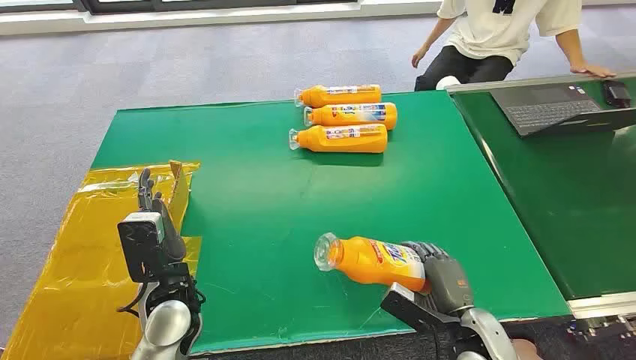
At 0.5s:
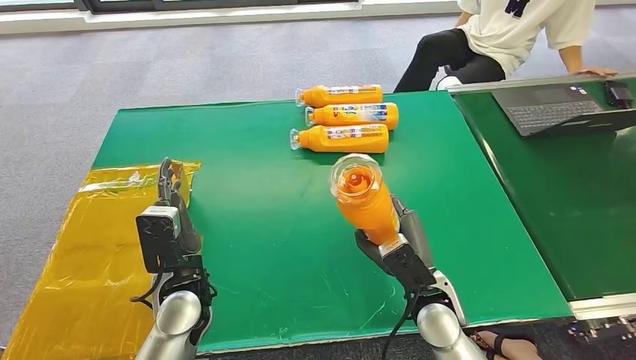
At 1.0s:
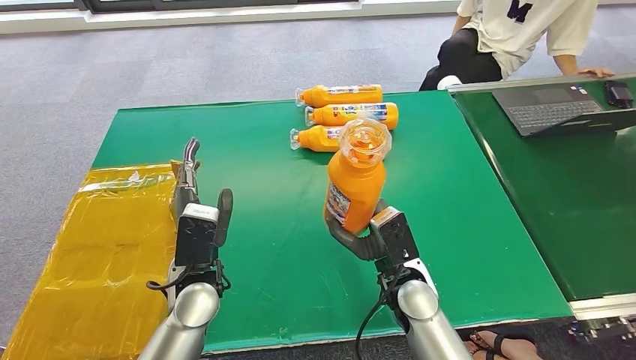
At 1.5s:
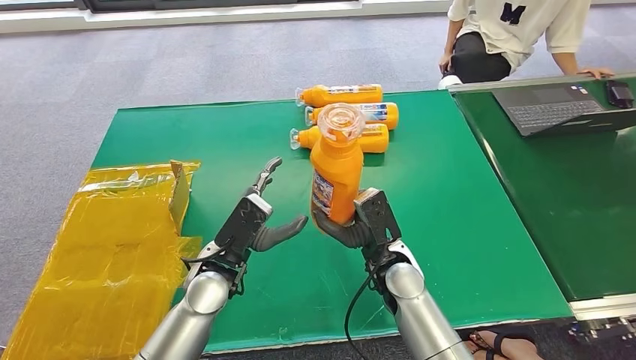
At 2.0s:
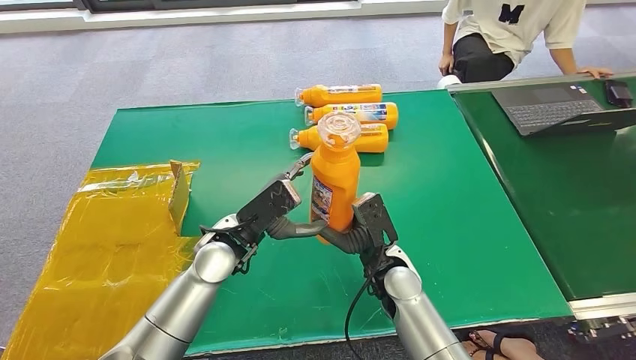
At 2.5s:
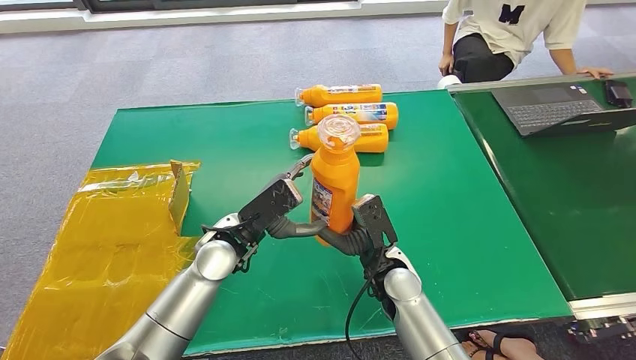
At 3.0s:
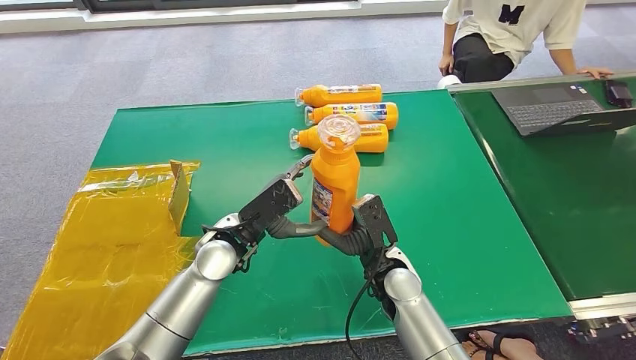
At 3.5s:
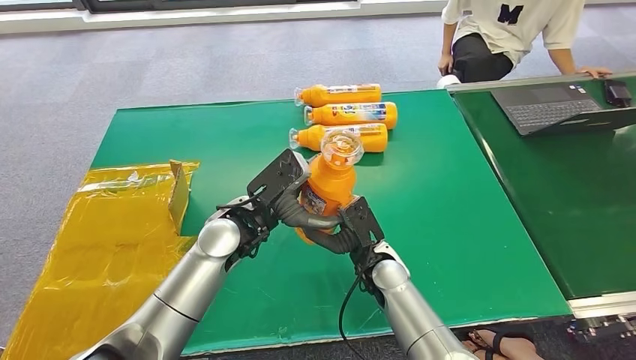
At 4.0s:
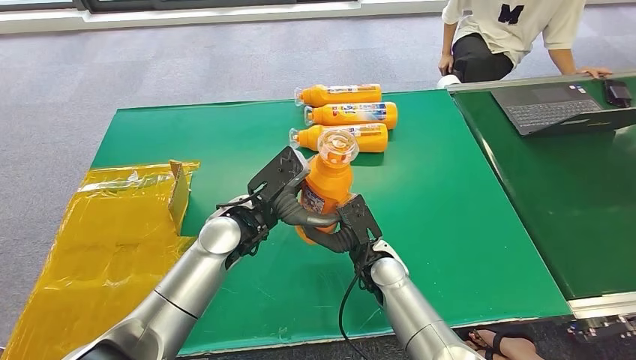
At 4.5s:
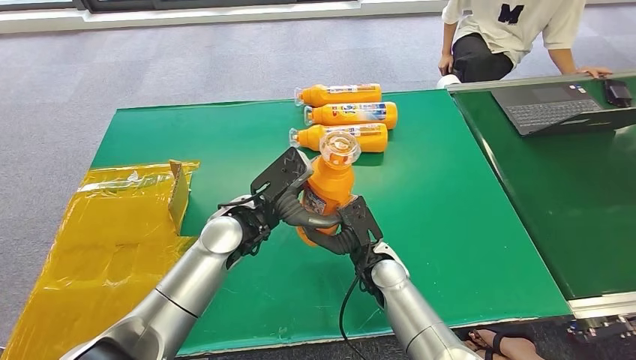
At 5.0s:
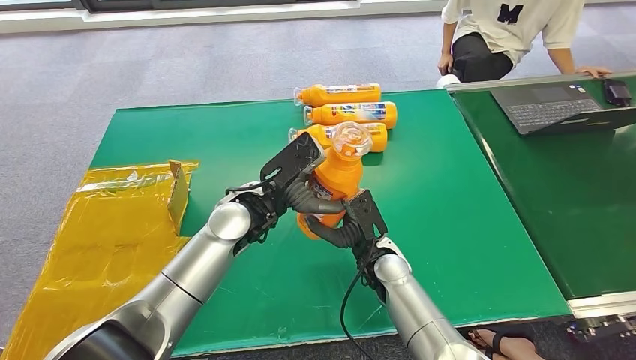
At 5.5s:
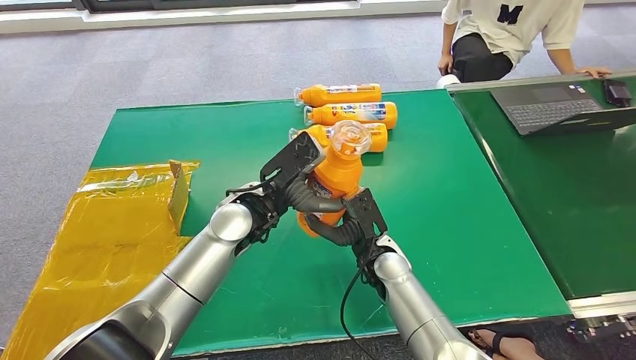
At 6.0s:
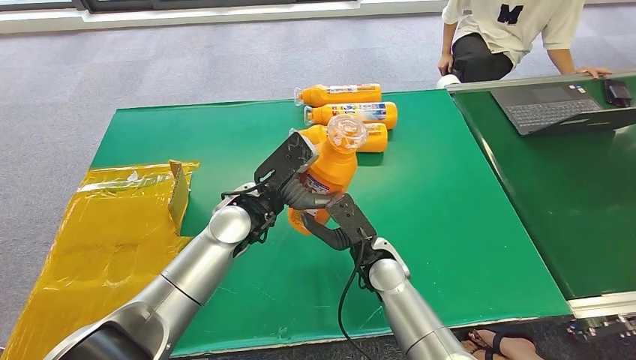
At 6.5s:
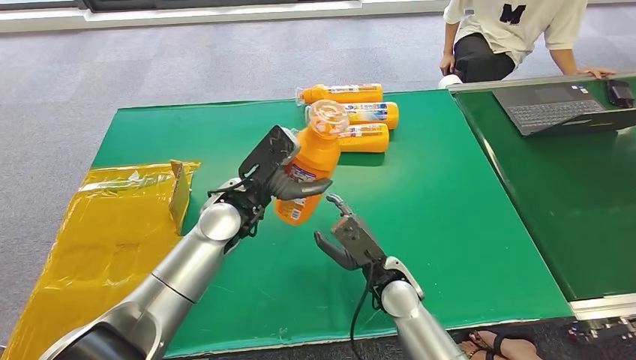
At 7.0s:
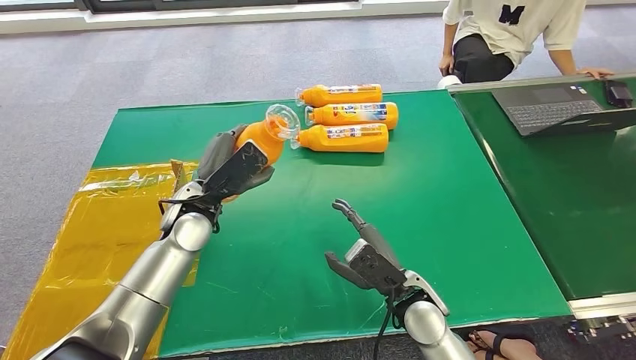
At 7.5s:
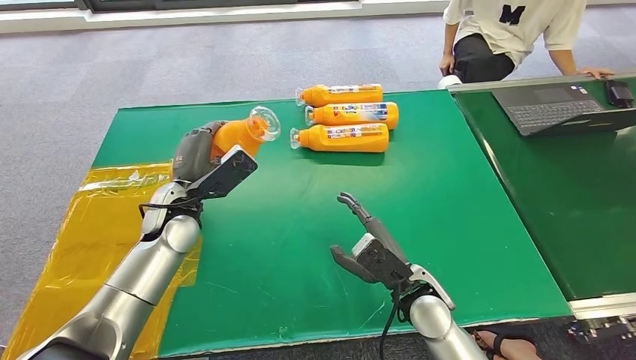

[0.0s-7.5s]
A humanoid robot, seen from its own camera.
Step, 0.0s to 0.5s: Pick up the bottle from the table.
Step, 1.0s to 7.5s: Turn the bottle to the front side.
2.0s to 4.0s: The hands make only small movements.
4.0s to 5.5s: The hands make only small movements.
5.5s to 7.5s: The right hand travels backward and to the right by about 10 cm. The left hand goes about 15 cm to the left.

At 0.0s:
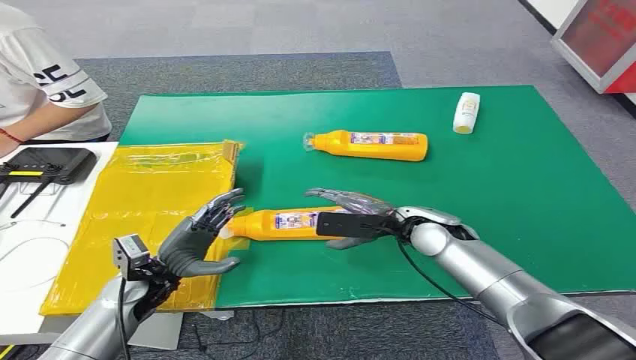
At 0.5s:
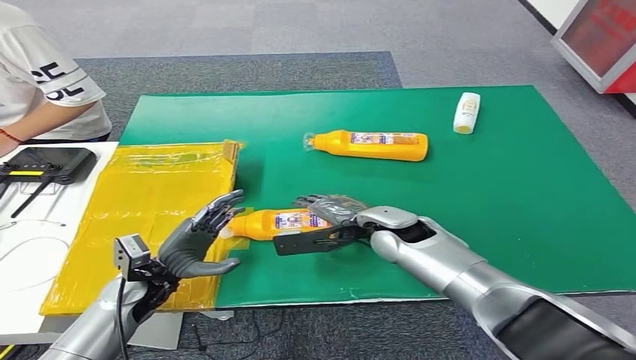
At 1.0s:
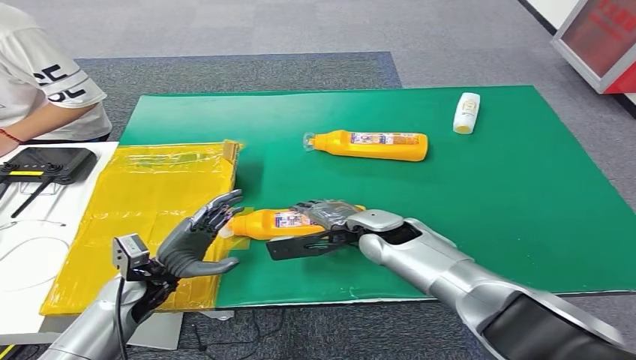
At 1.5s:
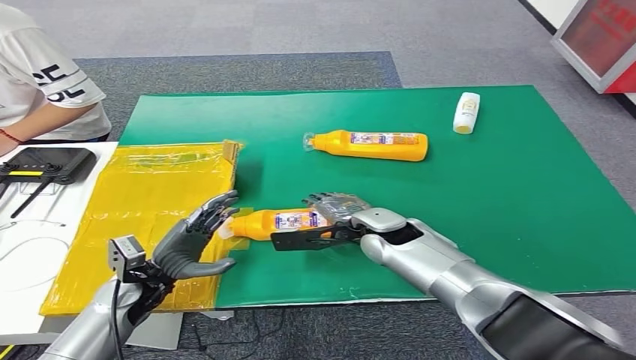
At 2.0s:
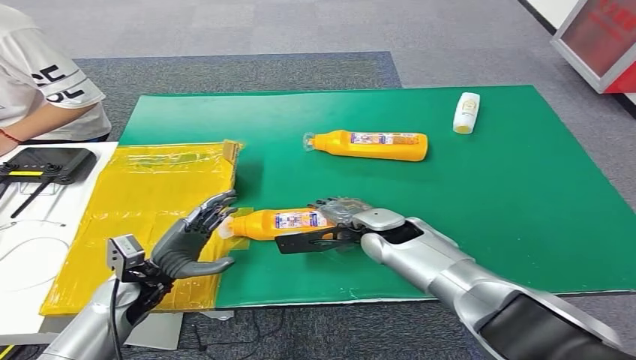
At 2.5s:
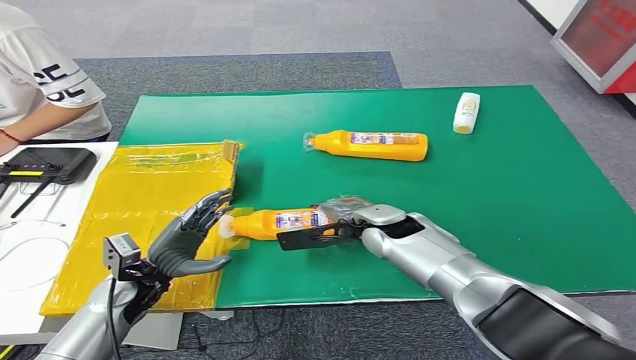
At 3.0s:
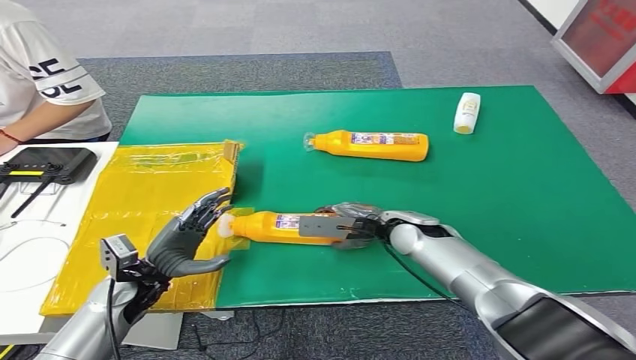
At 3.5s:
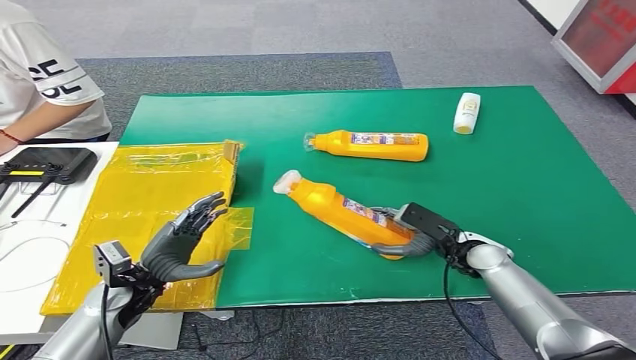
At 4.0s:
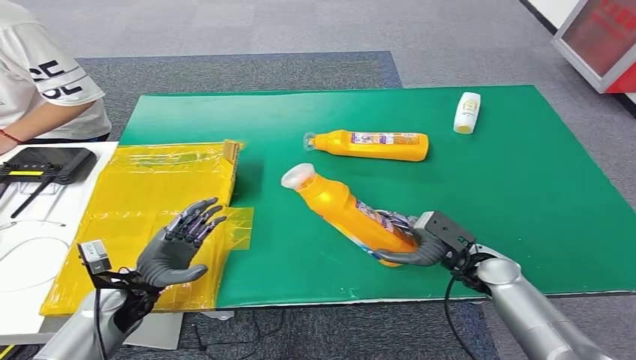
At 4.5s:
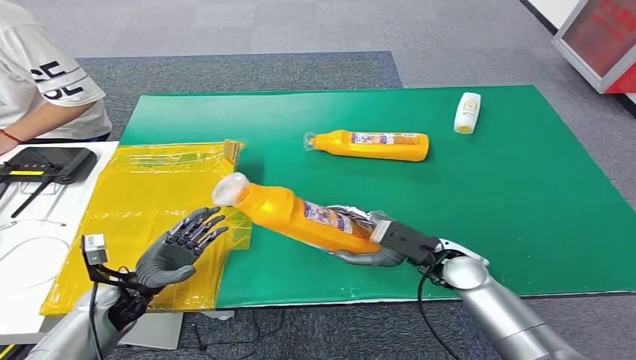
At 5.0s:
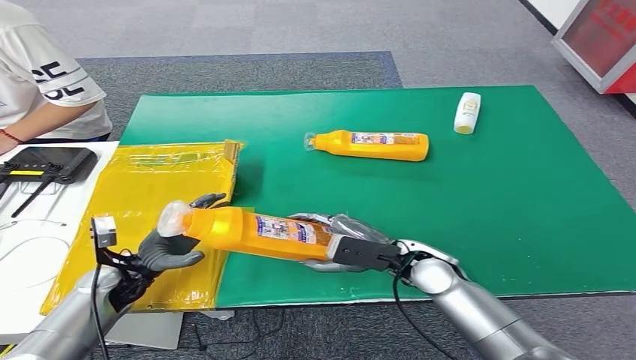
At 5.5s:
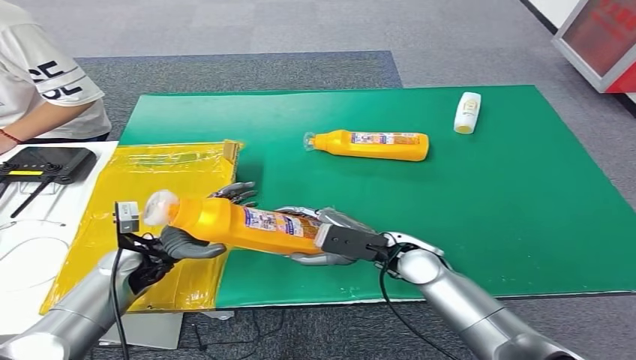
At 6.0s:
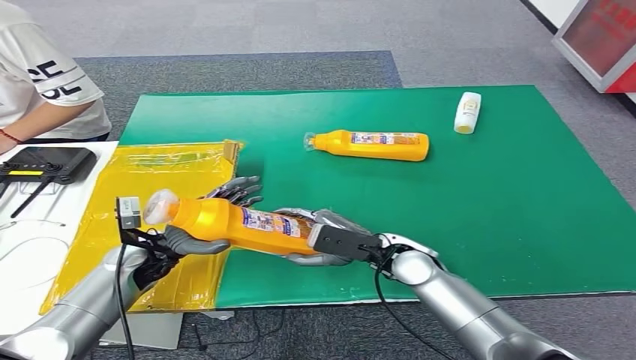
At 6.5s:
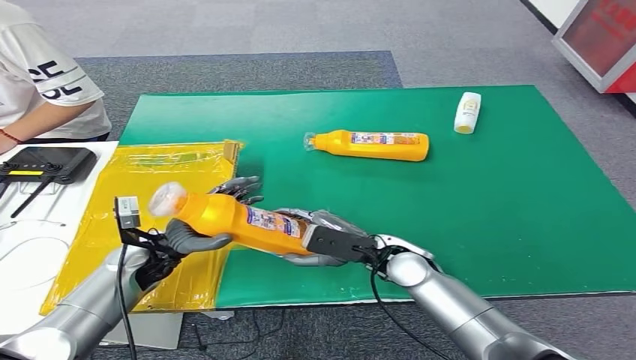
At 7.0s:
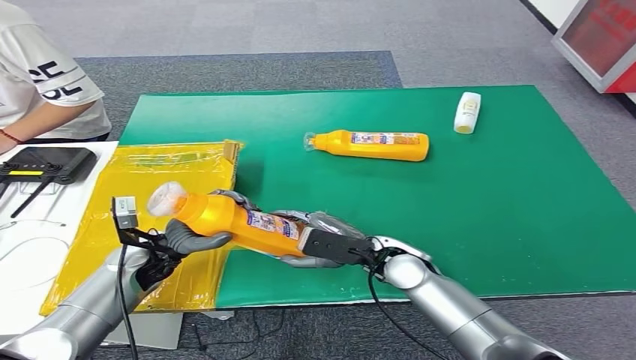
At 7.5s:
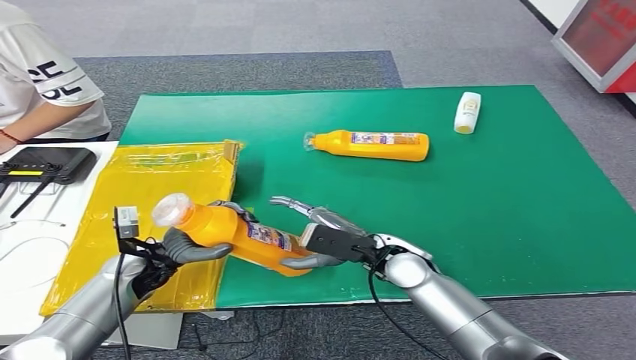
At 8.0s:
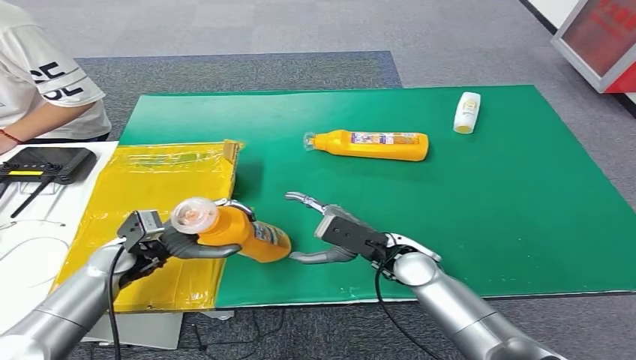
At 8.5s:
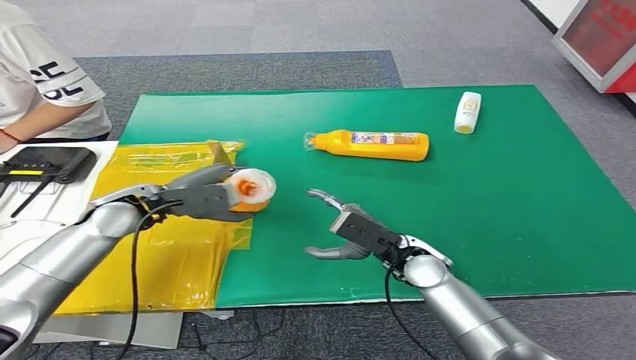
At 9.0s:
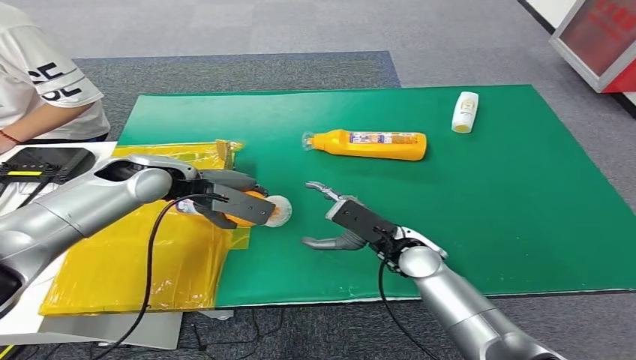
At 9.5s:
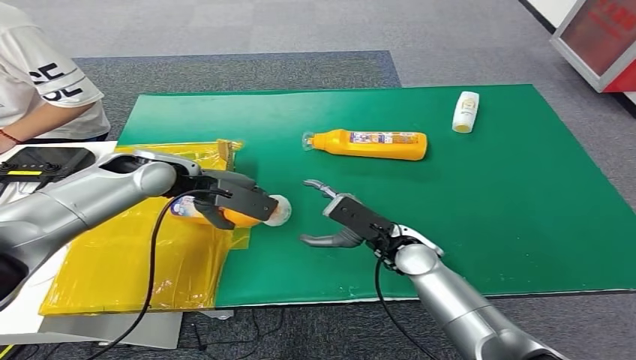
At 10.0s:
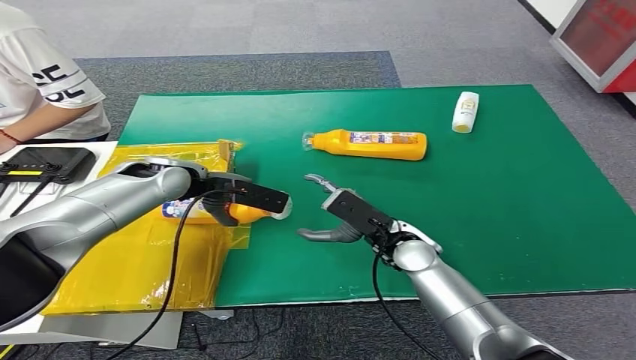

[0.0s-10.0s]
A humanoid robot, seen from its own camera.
Step, 0.0s to 4.5s: Pick up the bottle from the table.
2.0s to 4.0s: The right hand moves to the right, approximately 15 cm.
4.0s to 6.0s: The right hand heads to the left and upward, covering roughly 15 cm. The left hand moves forward, approximately 5 cm.

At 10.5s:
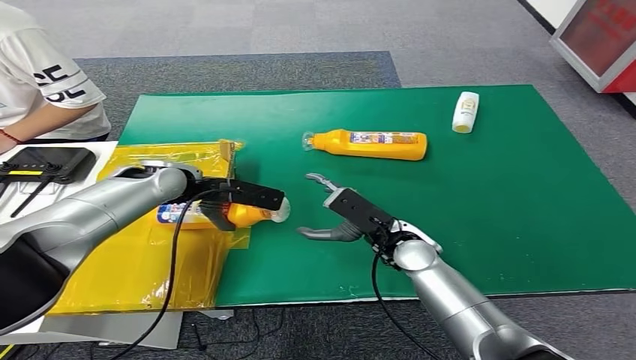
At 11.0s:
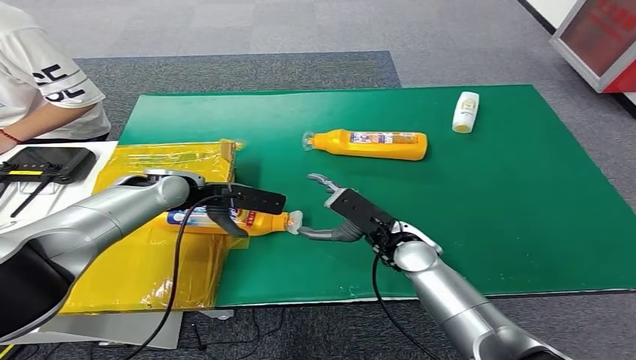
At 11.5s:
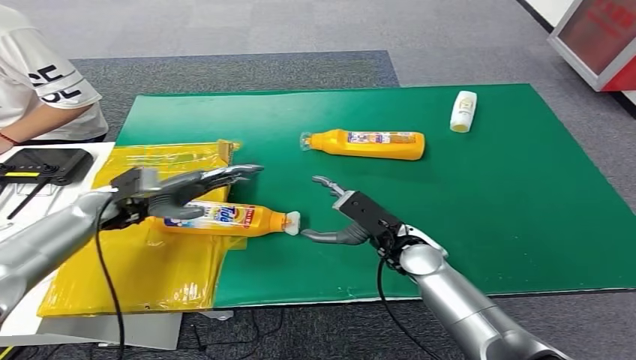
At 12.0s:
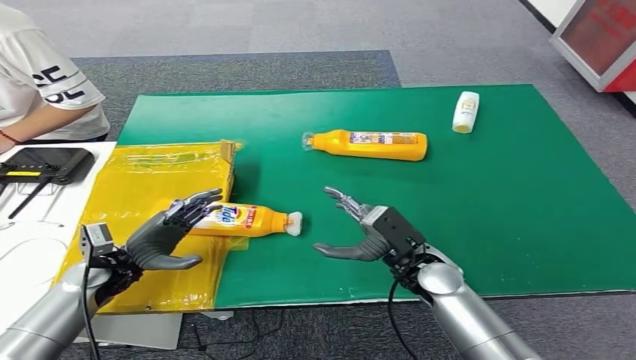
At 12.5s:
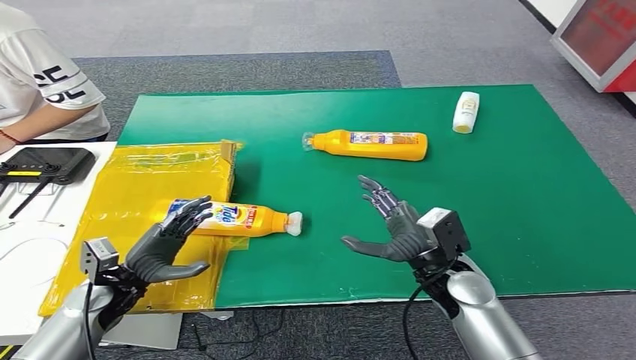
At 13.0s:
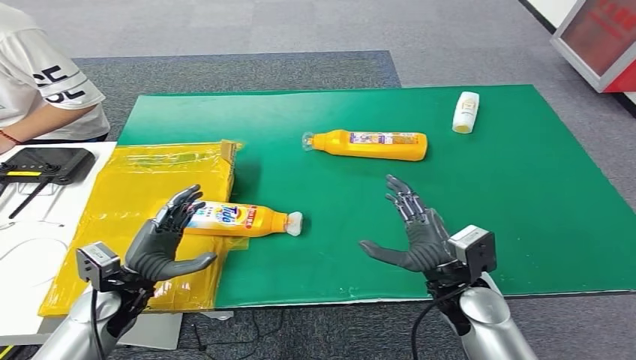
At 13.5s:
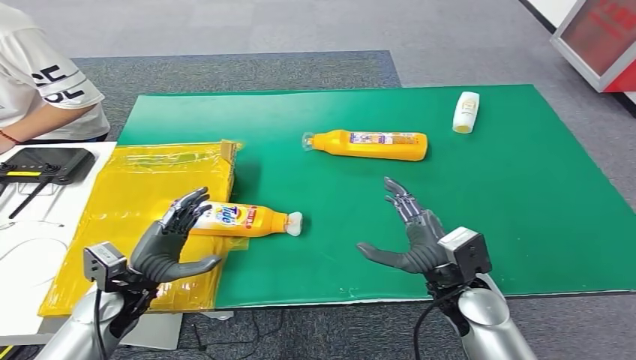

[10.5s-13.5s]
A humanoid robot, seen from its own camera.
Step, 10.5s to 13.5s: Turn the bottle to the front side.
12.0s to 13.5s: The left hand is displaced backward by about 5 cm. The right hand moves some 5 cm.
